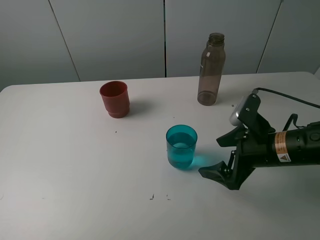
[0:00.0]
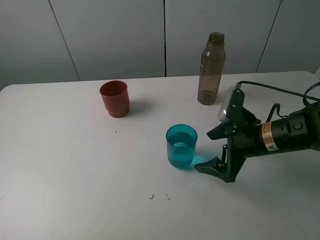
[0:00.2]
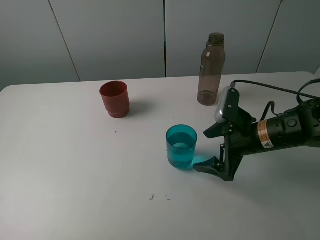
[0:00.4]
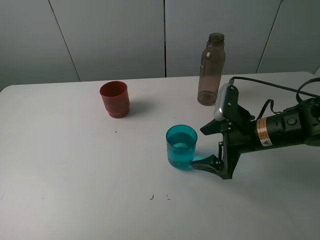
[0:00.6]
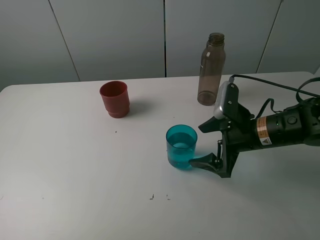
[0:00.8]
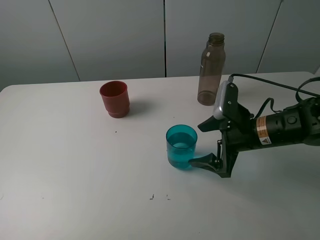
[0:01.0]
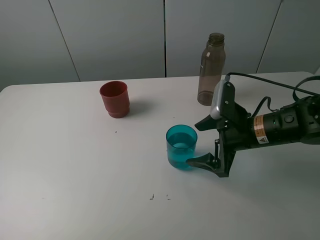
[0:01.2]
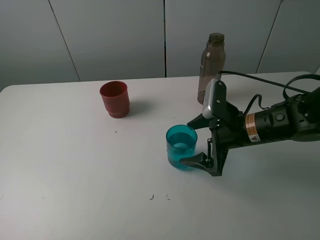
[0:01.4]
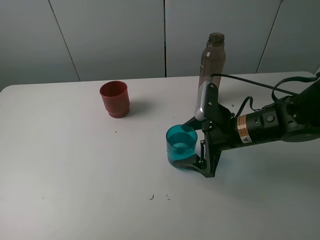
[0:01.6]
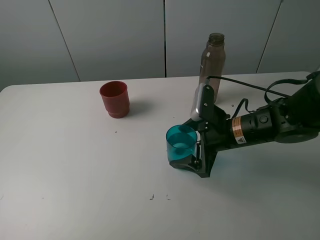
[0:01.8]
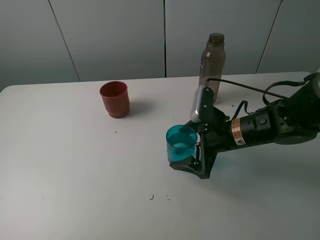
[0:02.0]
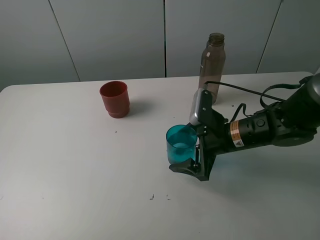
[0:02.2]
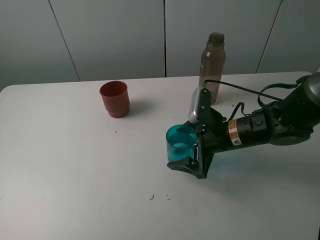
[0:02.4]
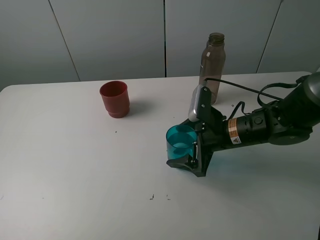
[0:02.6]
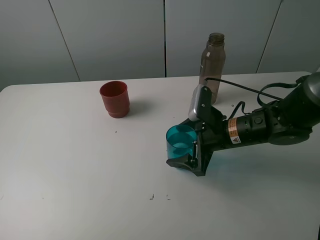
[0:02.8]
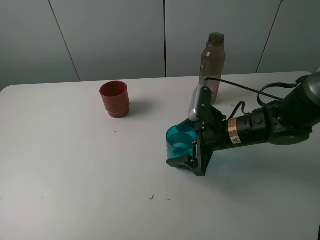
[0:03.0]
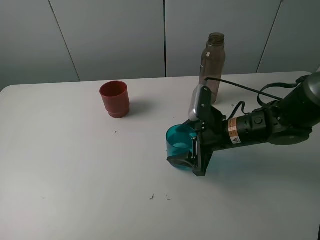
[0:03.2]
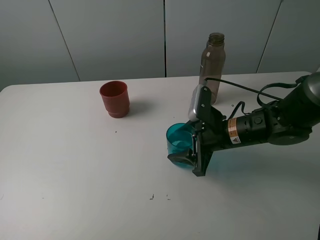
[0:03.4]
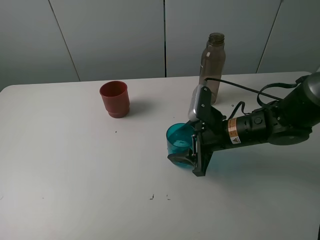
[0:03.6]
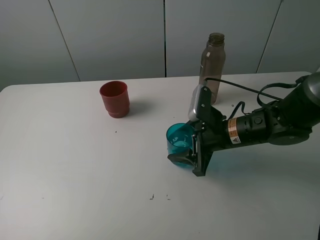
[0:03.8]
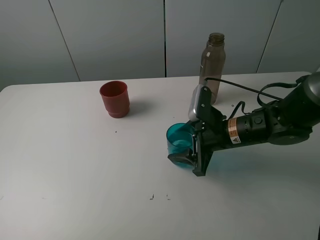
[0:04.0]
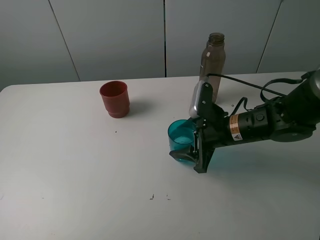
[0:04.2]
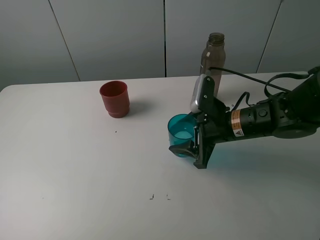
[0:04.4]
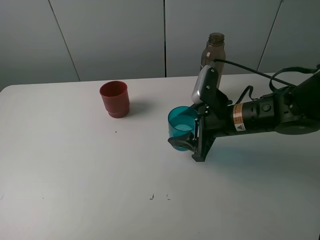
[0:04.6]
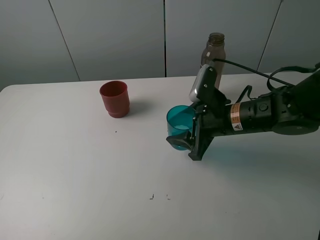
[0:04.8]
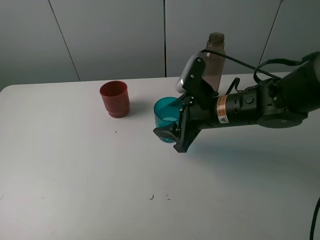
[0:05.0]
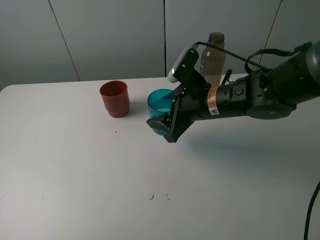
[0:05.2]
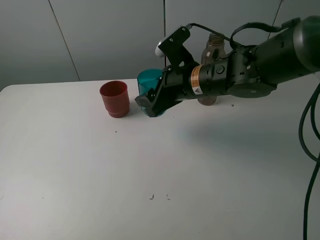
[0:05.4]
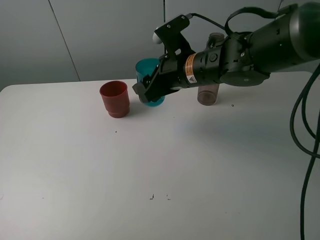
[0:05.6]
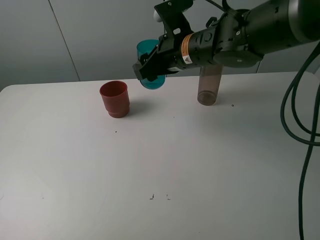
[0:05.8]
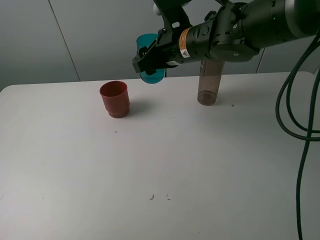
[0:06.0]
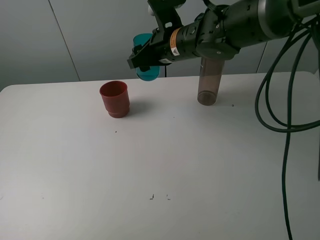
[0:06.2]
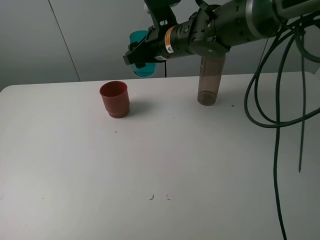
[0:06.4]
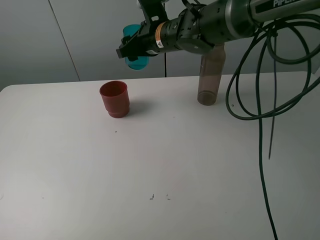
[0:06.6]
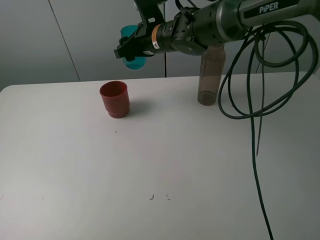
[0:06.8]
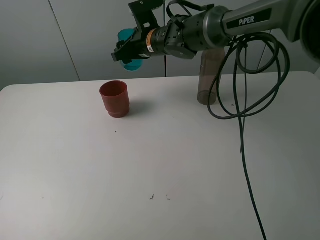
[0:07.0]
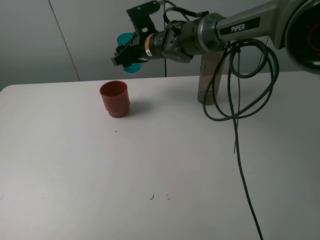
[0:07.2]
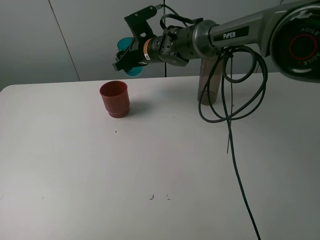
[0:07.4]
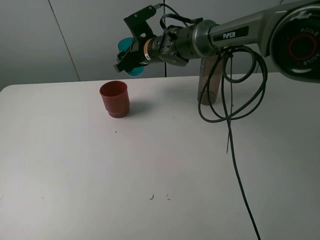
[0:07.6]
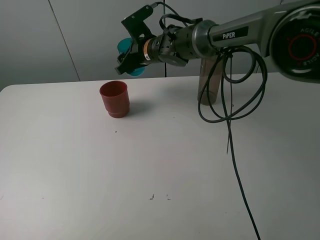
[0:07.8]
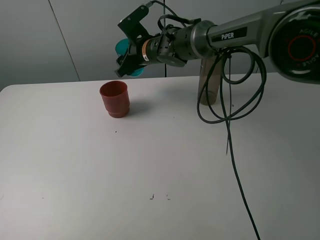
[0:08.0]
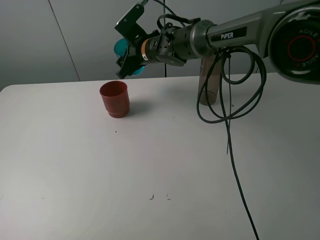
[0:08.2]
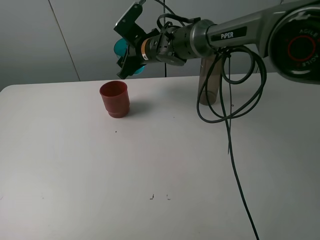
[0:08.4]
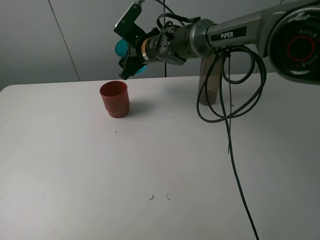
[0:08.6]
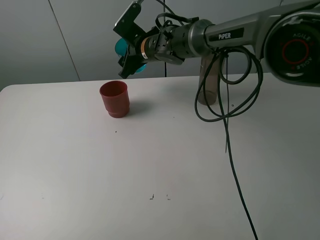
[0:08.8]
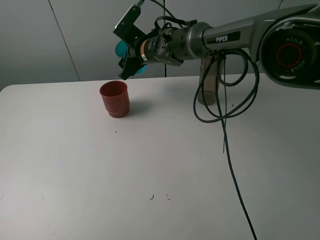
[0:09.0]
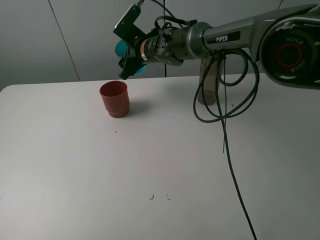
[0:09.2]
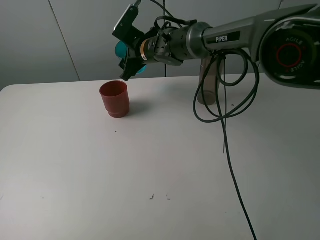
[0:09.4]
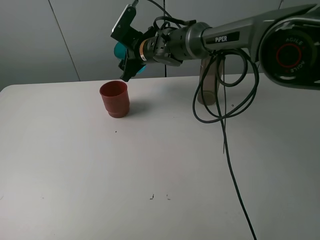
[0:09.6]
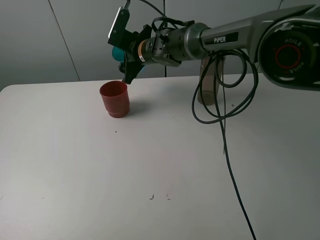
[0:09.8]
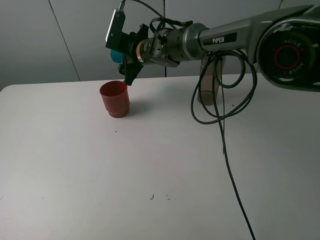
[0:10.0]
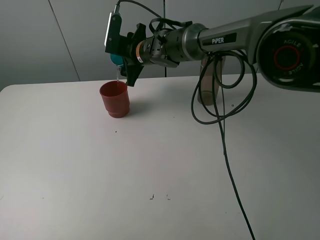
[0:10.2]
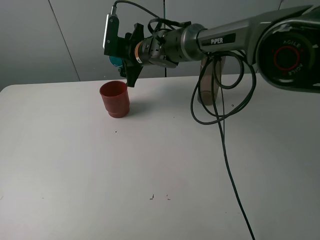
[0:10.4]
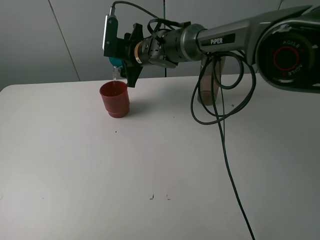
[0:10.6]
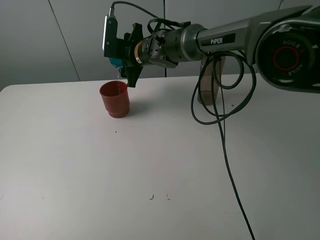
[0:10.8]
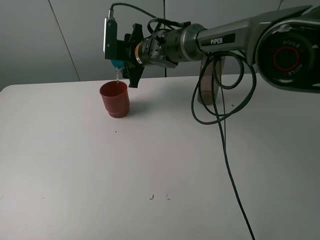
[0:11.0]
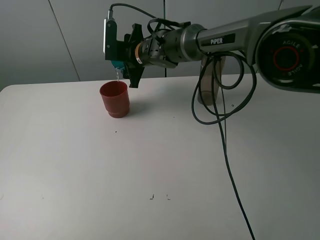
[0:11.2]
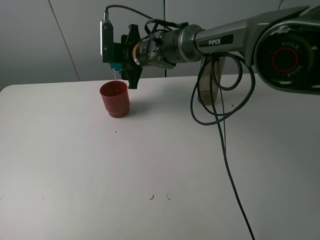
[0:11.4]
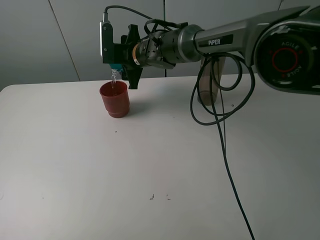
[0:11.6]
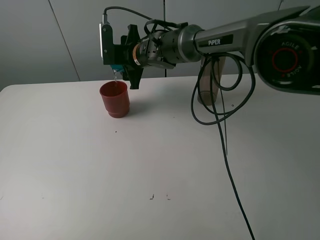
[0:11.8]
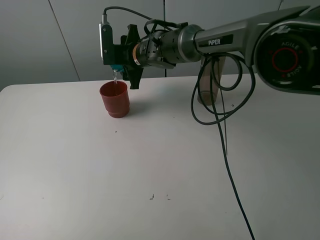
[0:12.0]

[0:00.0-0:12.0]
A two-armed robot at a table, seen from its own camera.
Task of the whole recording: pick up the bottle and pour water into the cup, then pick up the cup containing water and pour it into another cup.
Step, 0:00.0 to 0:03.4: Grasp the blue cup with the right gripper.
0:00.0 to 0:01.6: The right gripper heads to the left, covering roughly 5 cm.
0:01.6 to 0:03.0: There are only small adjustments of the grippers.
0:03.0 to 0:04.4: The right gripper closes up.
0:04.4 to 0:06.0: The right gripper shifts approximately 15 cm upward, to the left and forward.
0:06.0 to 0:07.6: The right gripper goes about 15 cm forward, to the left and downward.
0:07.6 to 0:09.0: The grippers stay close to where they were, moving slightly.
0:10.4 to 0:12.0: The grippers make only small movements.

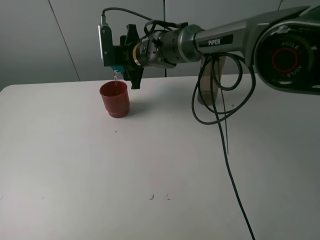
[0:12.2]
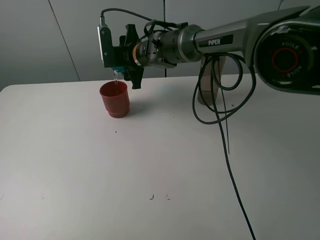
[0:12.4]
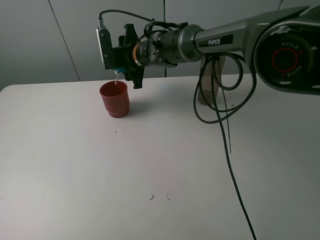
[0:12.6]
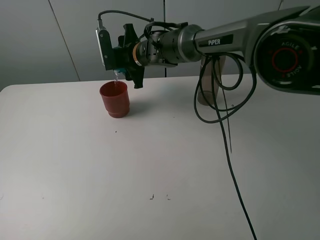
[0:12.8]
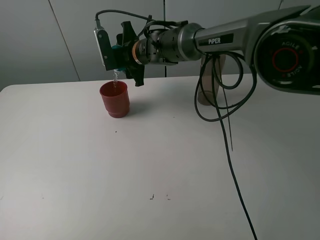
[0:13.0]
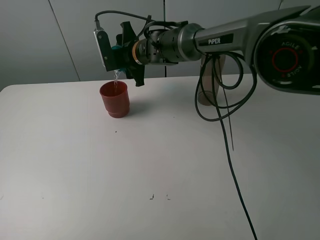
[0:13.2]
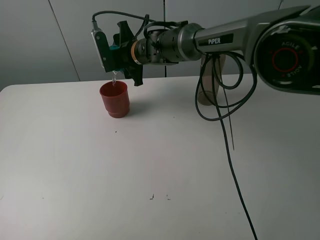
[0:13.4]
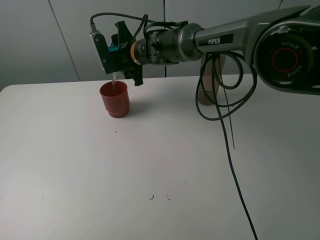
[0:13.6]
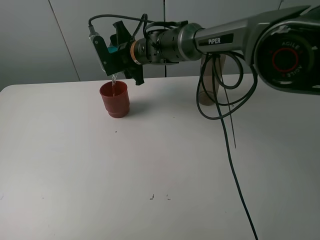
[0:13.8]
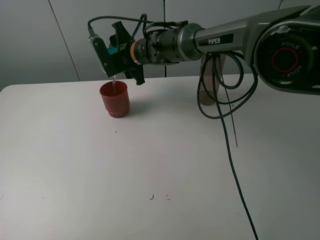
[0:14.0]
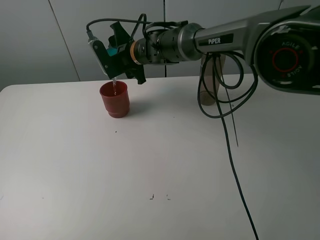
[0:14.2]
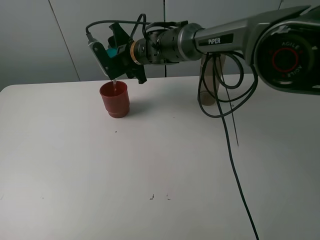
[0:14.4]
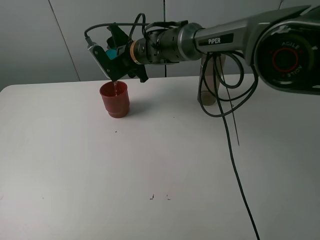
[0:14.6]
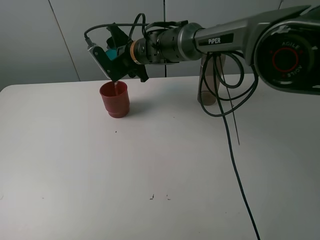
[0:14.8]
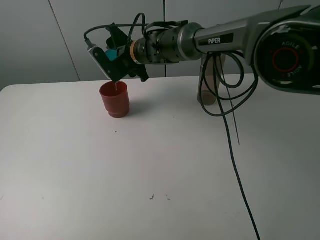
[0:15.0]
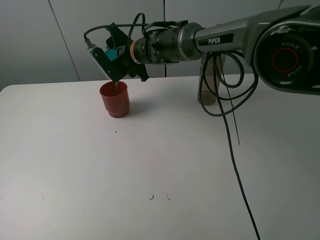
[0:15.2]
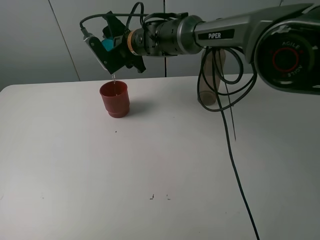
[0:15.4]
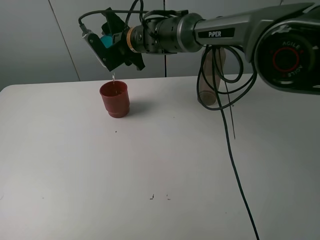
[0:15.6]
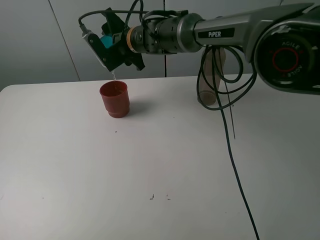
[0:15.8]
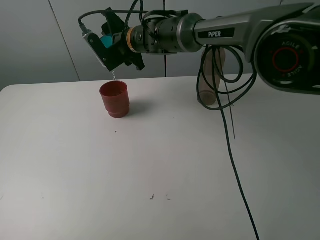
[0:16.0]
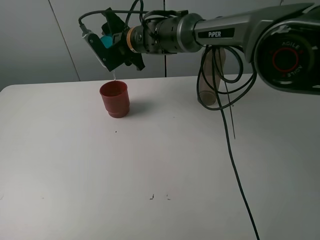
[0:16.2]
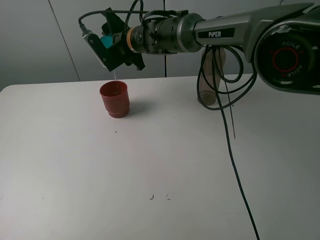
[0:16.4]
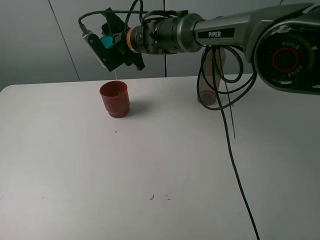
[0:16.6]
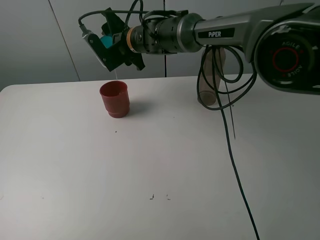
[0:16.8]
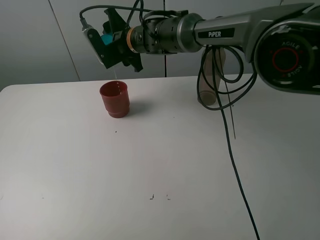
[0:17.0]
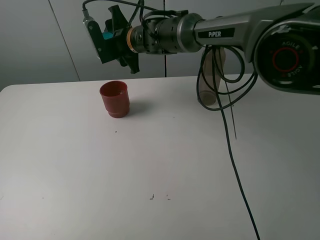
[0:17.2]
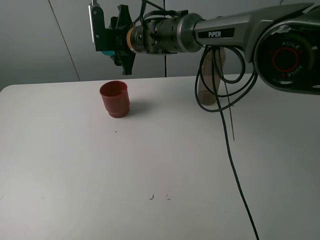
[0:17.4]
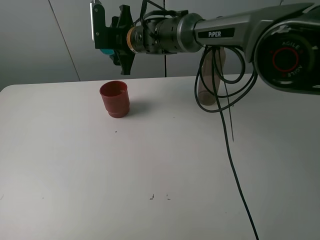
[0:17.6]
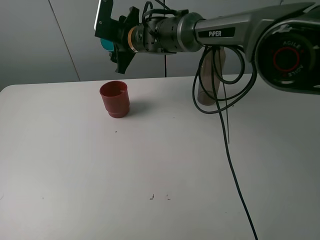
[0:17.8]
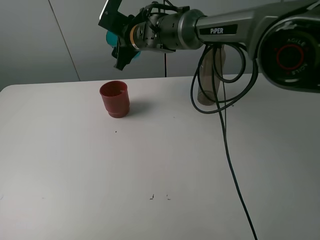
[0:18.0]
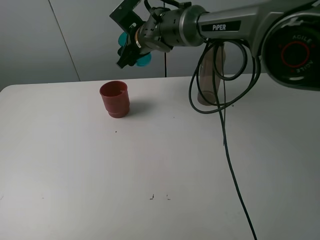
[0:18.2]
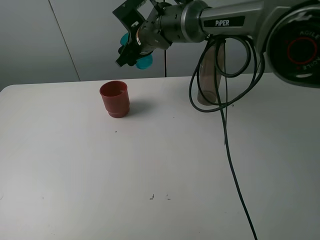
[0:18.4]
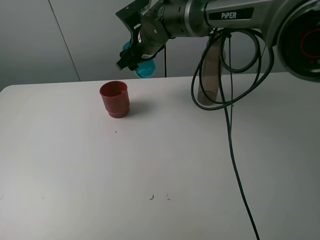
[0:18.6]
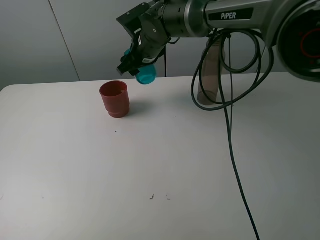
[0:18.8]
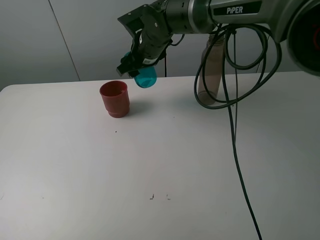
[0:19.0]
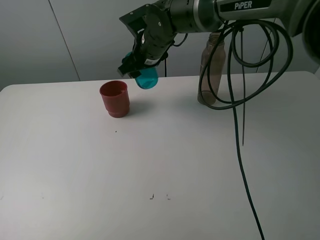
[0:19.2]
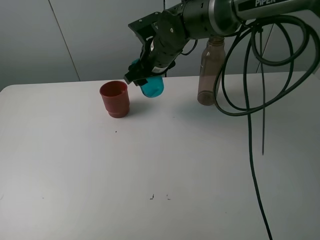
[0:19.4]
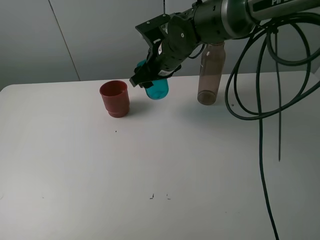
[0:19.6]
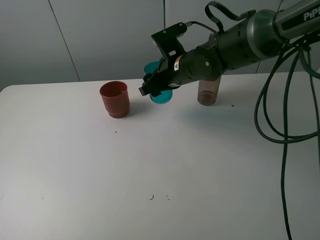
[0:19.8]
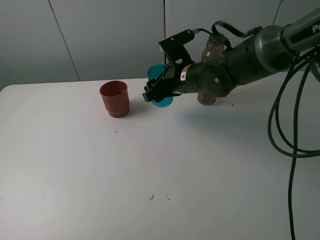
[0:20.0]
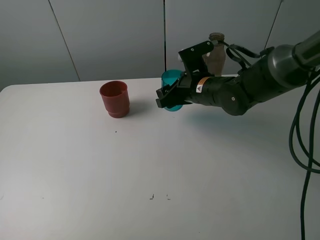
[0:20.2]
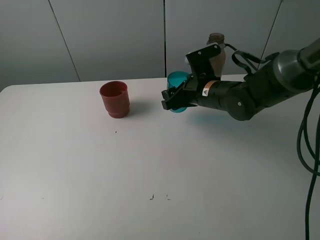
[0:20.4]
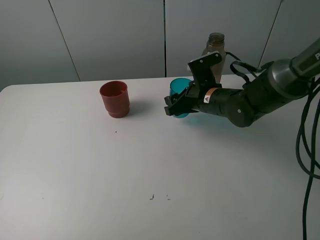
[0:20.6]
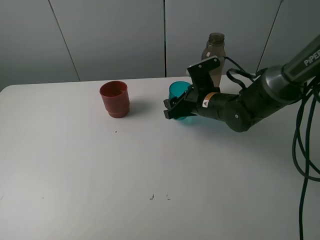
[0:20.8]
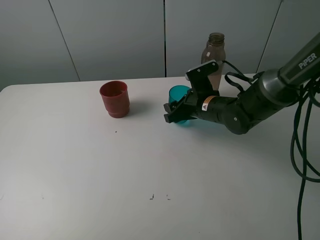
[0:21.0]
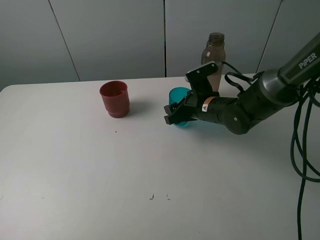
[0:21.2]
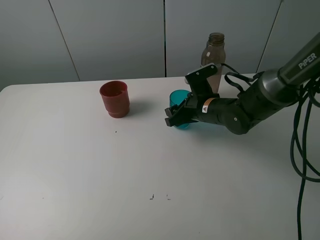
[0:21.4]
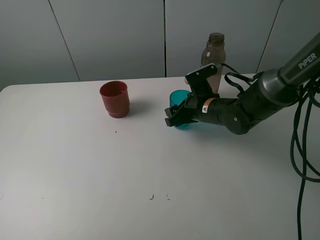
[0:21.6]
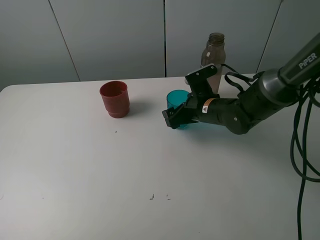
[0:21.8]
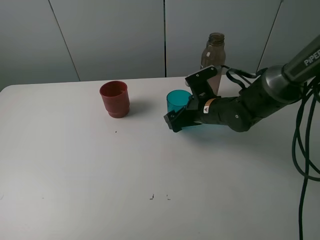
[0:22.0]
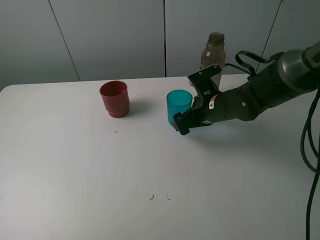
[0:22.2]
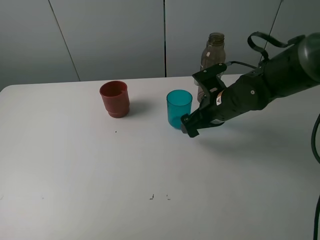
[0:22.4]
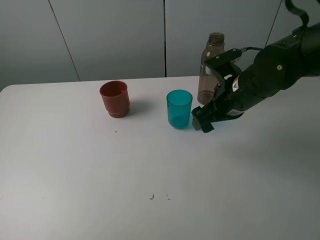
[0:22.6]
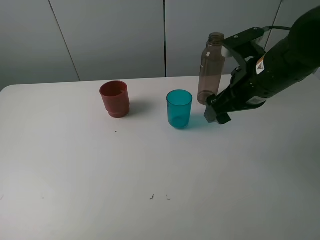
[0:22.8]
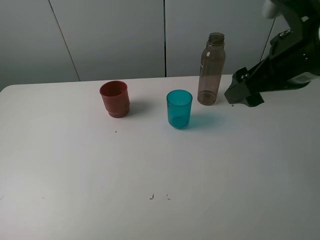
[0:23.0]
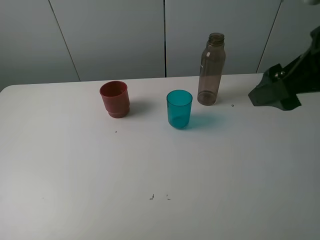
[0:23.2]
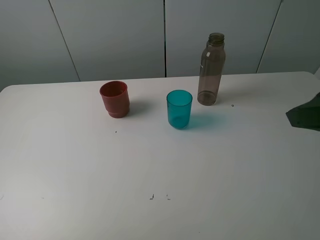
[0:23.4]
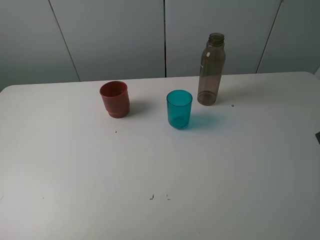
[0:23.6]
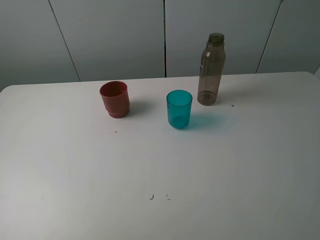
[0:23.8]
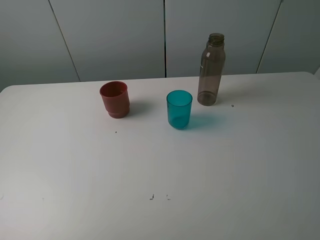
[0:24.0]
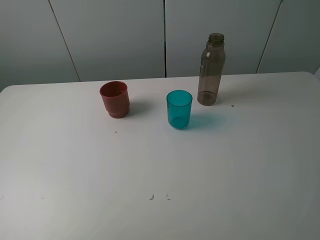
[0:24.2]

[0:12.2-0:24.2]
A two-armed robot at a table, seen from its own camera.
Task of the whole recording: pick up the bottle and pour water into the cup, then pick up the cup containing water and pour it into another cup.
Step, 0:12.2 to 0:17.2: Pour water from blue cup to red cup with the right gripper.
Step, 0:17.4 to 0:22.0: Place the blue cup with the right gripper.
0:12.2 to 0:13.8: The grippers make only small movements.
0:13.8 to 0:16.6: The grippers make only small movements.
0:18.2 to 0:19.8: The right gripper travels backward and to the right by some 15 cm.
0:19.8 to 0:21.2: The right gripper travels downward and to the right by roughly 10 cm.
0:21.2 to 0:22.6: The right gripper heads upward and backward, covering roughly 10 cm, and opens.
0:22.6 to 0:24.2: The right gripper goes about 30 cm backward and to the right.
